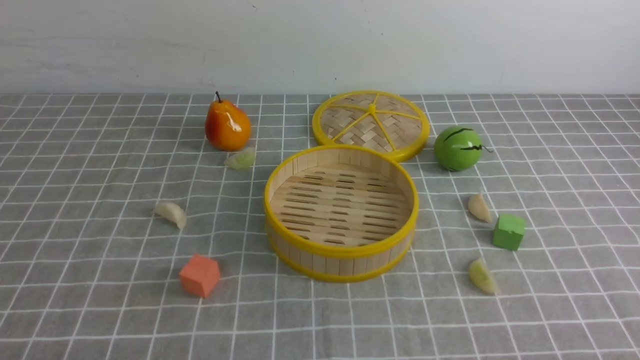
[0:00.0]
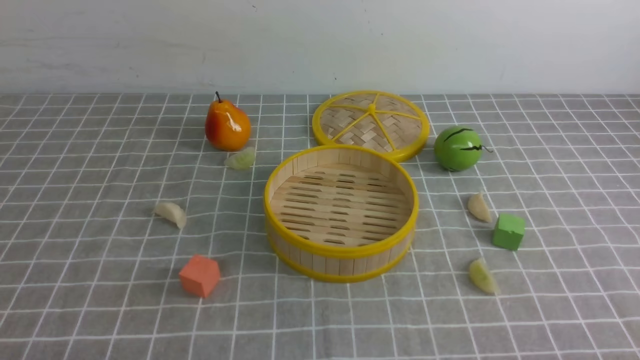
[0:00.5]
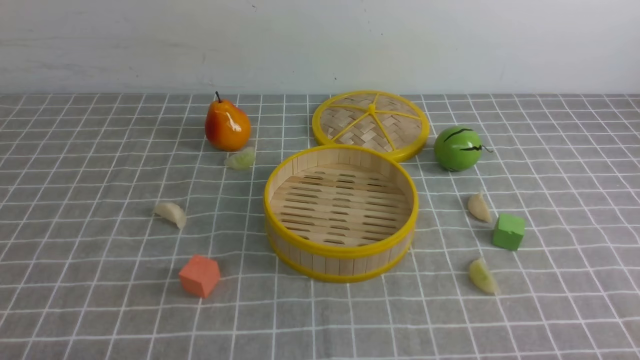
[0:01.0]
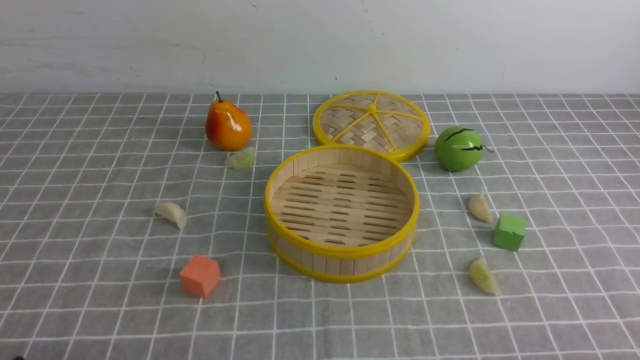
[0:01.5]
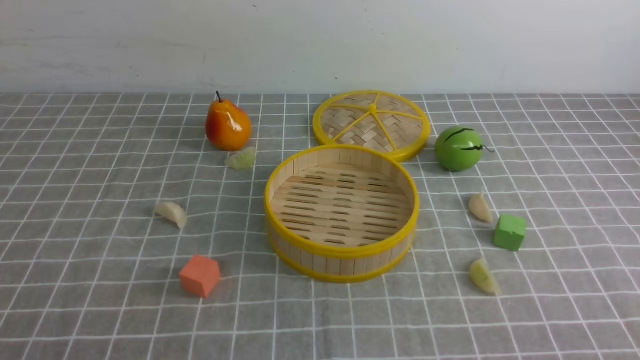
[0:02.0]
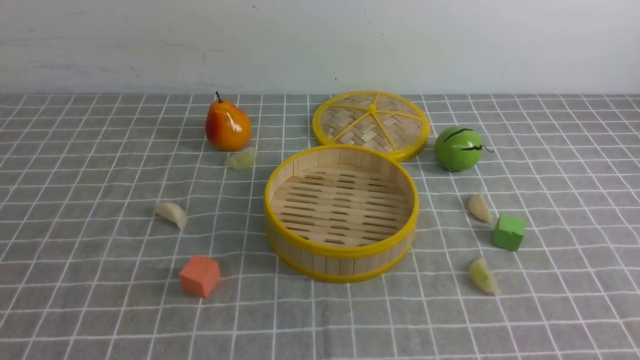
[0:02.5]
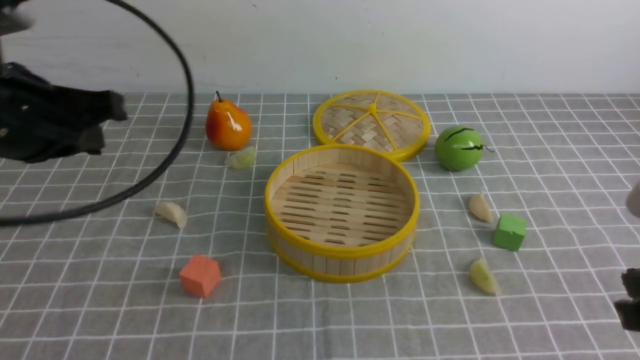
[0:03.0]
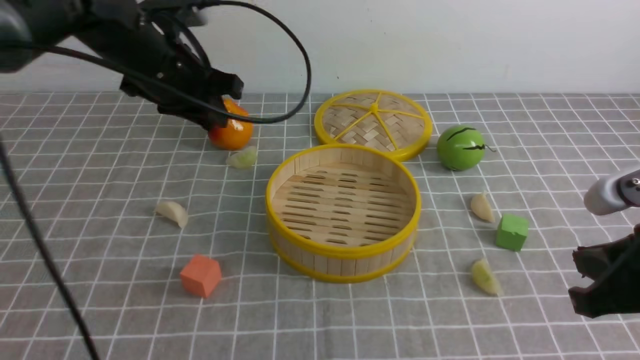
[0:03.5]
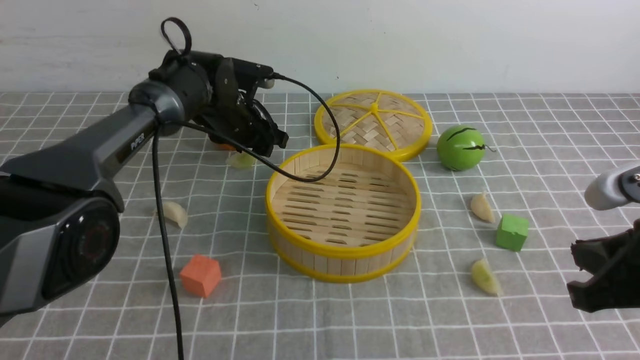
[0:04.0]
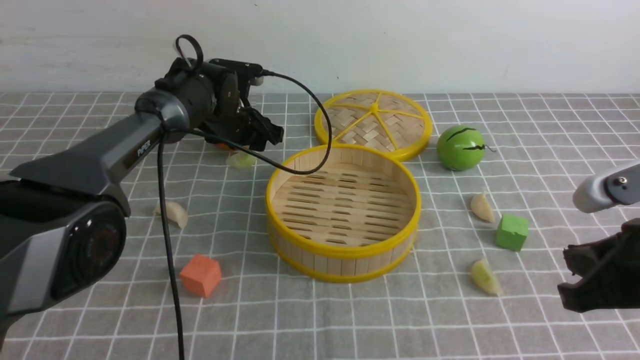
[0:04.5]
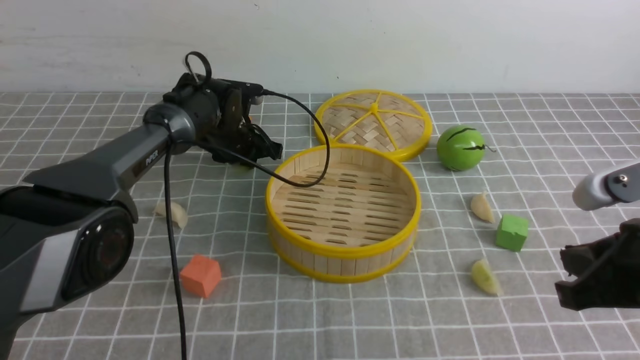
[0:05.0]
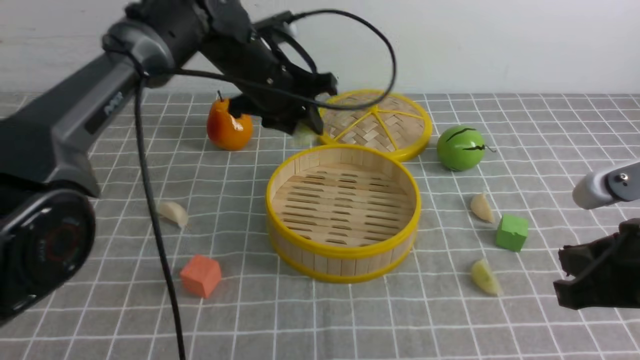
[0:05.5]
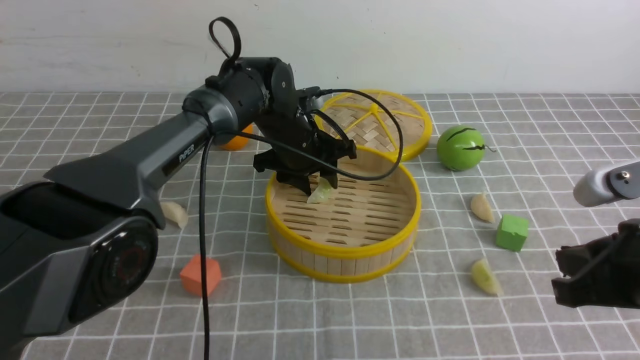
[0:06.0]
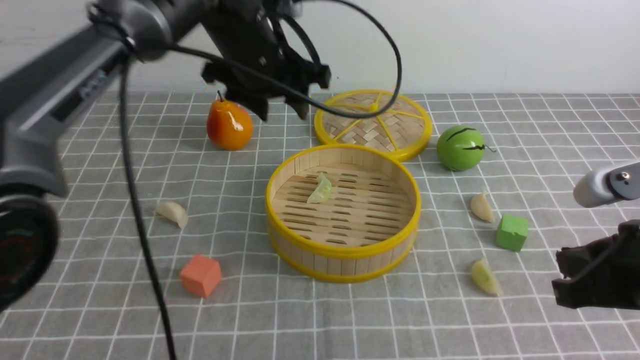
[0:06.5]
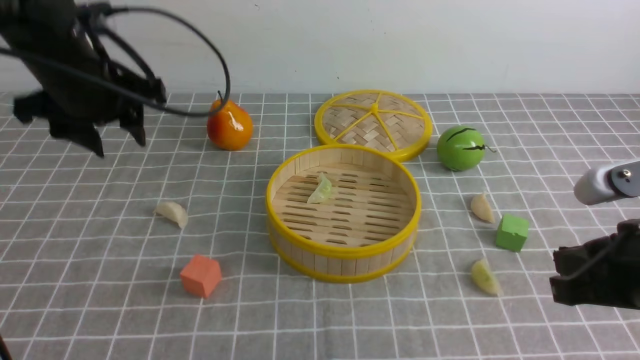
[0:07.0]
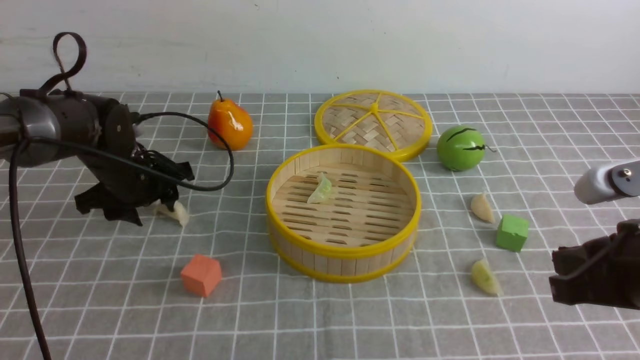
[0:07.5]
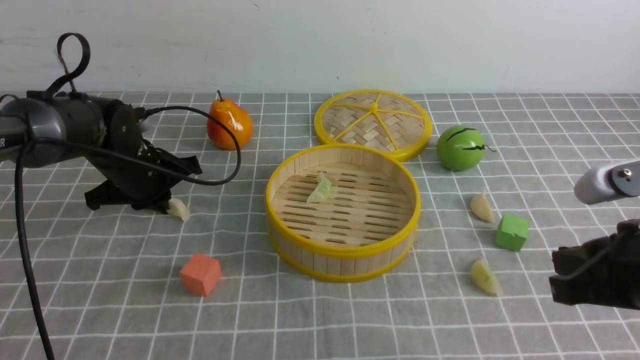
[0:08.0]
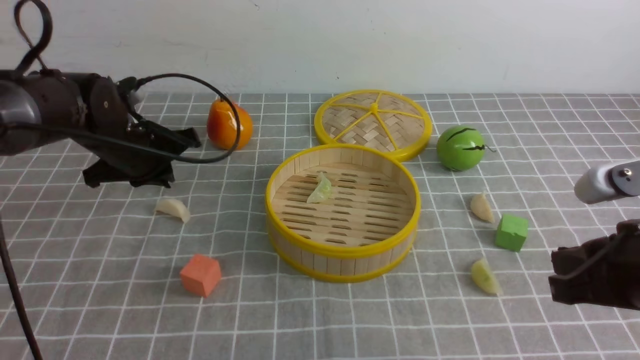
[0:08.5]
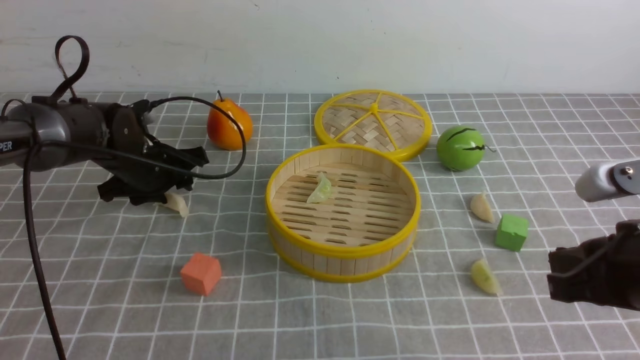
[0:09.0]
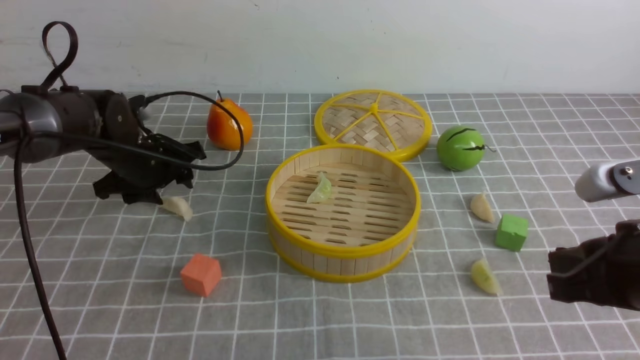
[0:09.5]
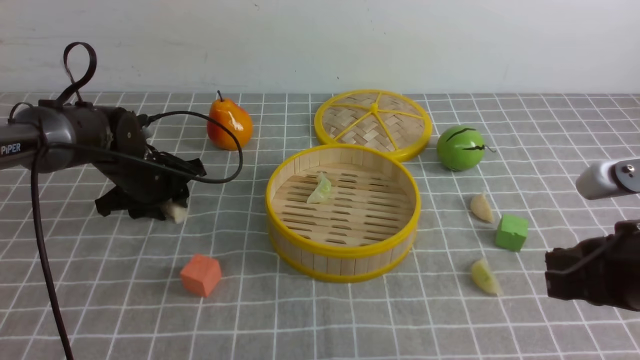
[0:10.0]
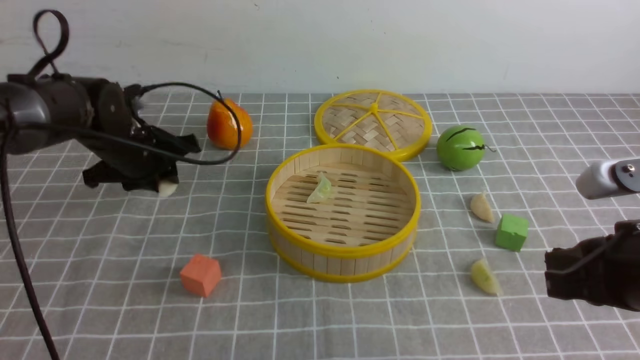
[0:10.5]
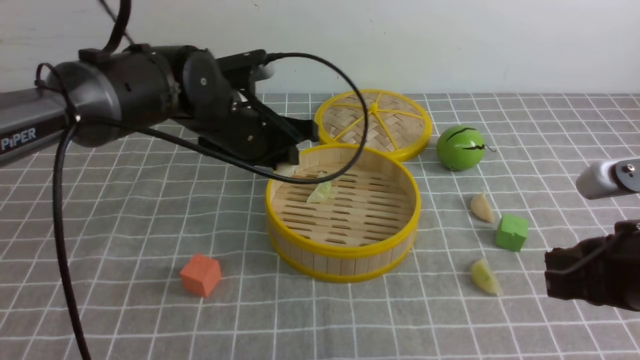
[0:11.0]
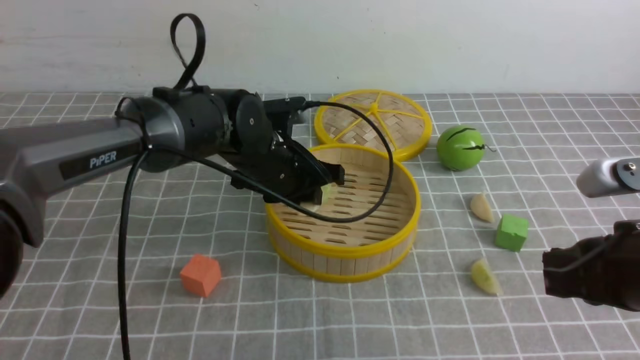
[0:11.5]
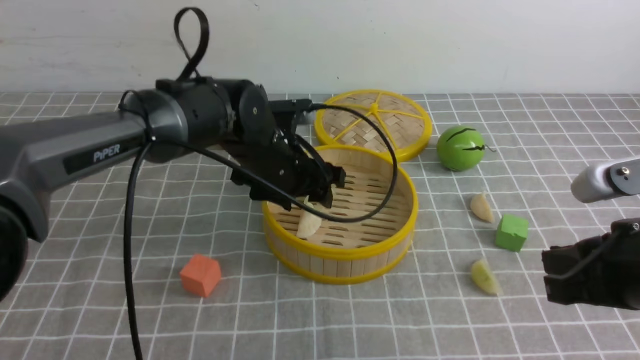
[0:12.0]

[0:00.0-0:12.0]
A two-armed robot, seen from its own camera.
Task of the whole recording: put the dumplings into the steamer on the table with the grey tablecloth.
Step, 0:00.0 to 0:05.0: use the left arm to grab a dumpling.
Step, 0:05.5 to 0:06.0: use the left arm to put the dumpling into the steamer.
Step, 0:06.5 to 0:10.5: use the left arm to grab a dumpling.
0:02.0 to 0:04.0: The right gripper moves forward, about 15 cm, and closes. Meanwhile the left gripper travels forward by roughly 50 cm, and opens up.
0:04.0 to 0:06.0: The left gripper is displaced to the right by about 10 cm, and closes and opens again.
0:06.0 to 0:08.0: The left gripper heads to the left, covering roughly 20 cm, and closes its fingers.
0:08.0 to 0:10.0: The left gripper opens.
0:10.0 to 0:12.0: The left gripper is displaced to the right and upward by about 20 cm.

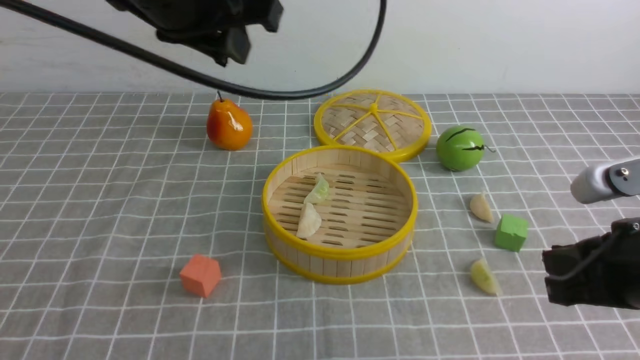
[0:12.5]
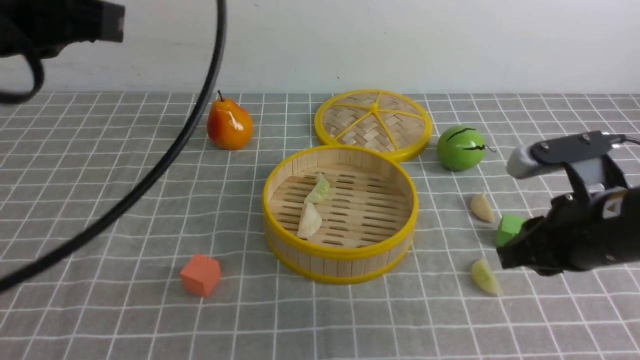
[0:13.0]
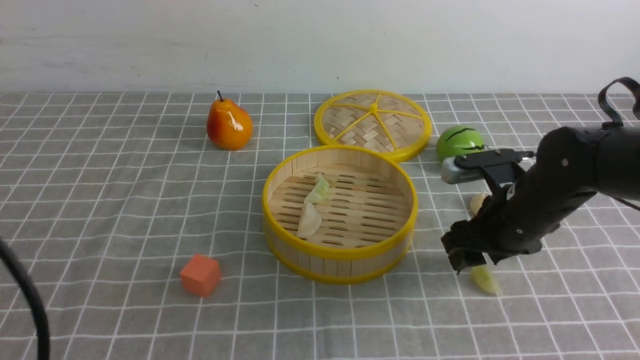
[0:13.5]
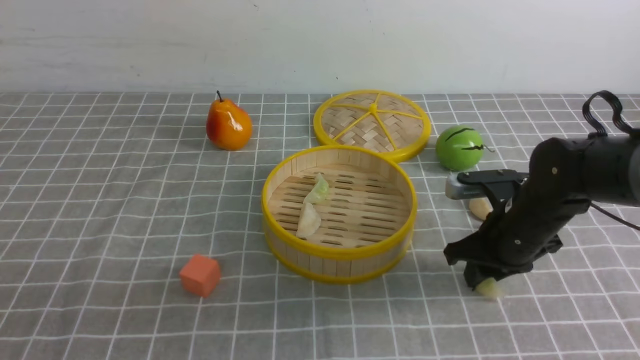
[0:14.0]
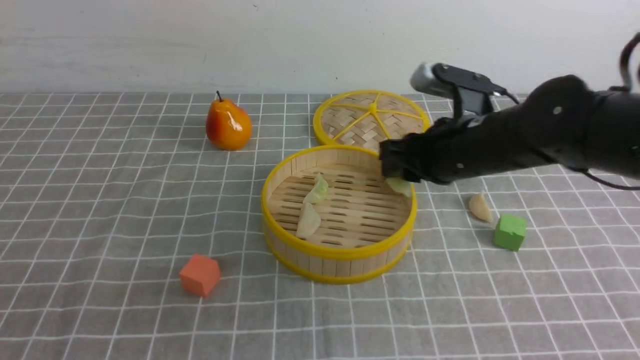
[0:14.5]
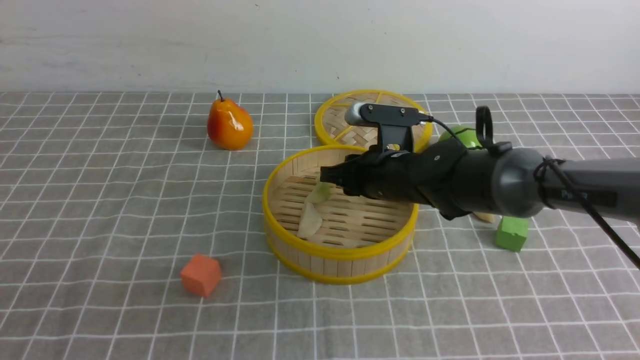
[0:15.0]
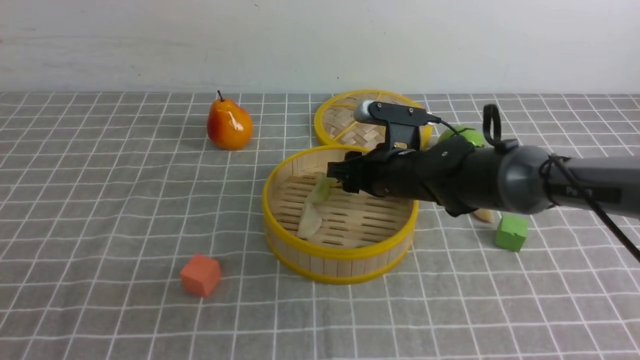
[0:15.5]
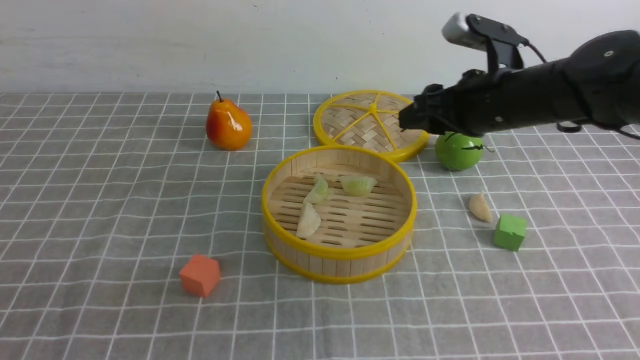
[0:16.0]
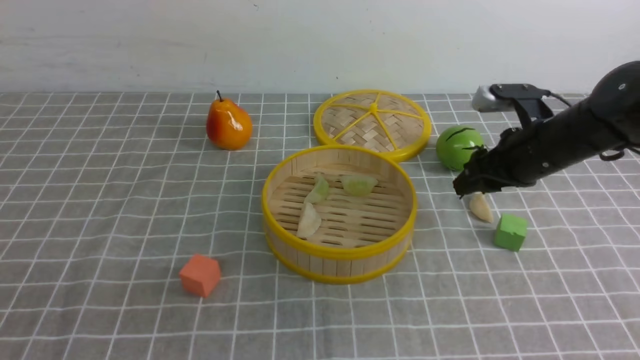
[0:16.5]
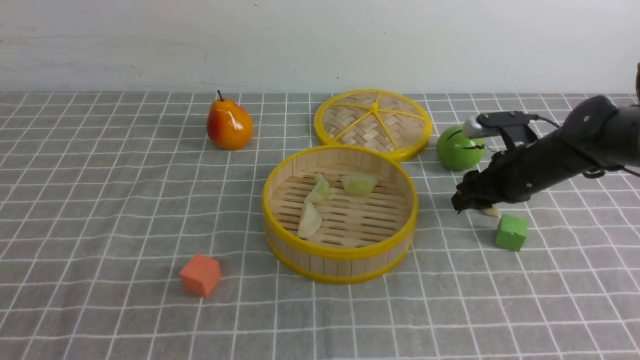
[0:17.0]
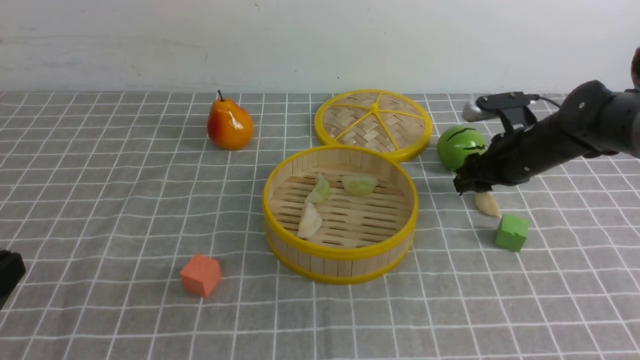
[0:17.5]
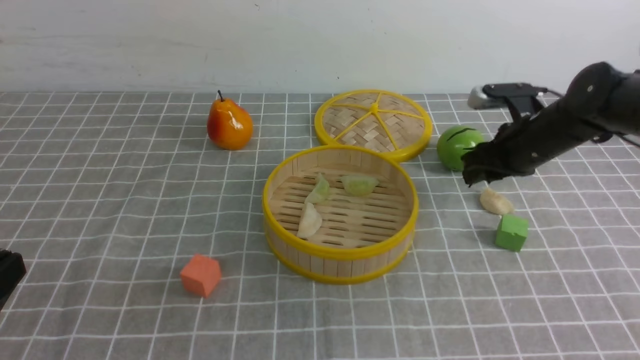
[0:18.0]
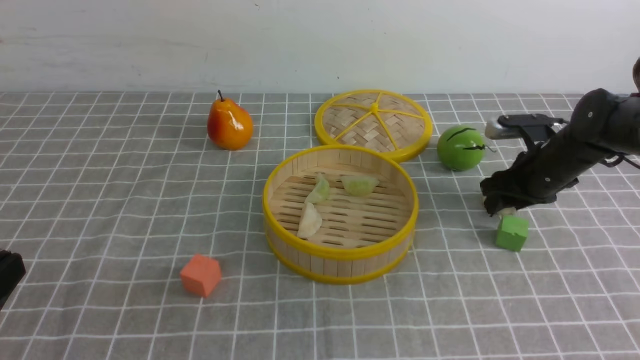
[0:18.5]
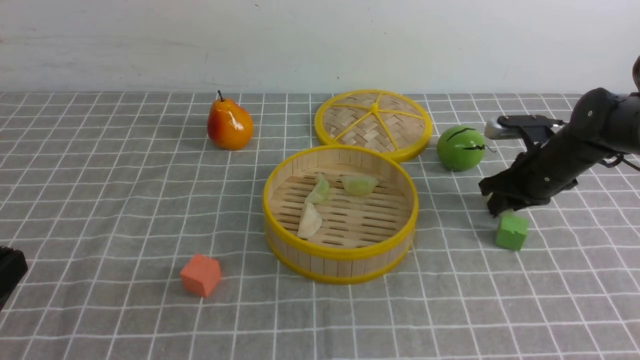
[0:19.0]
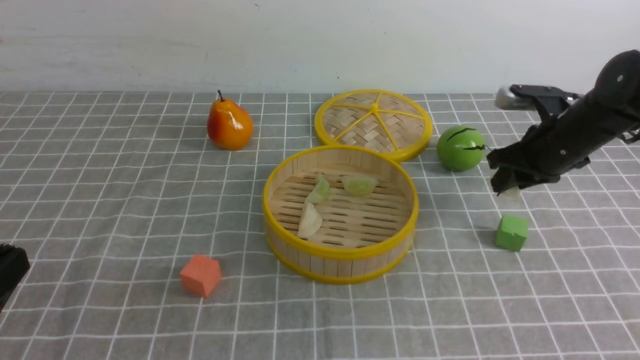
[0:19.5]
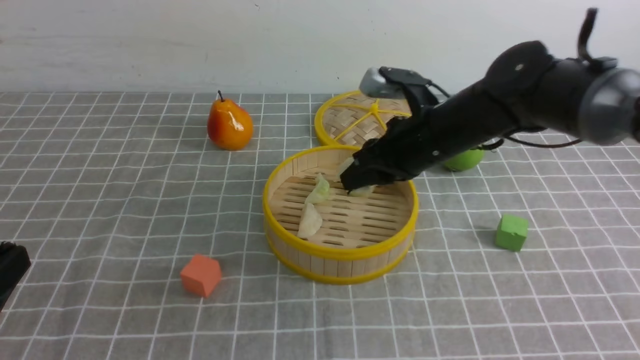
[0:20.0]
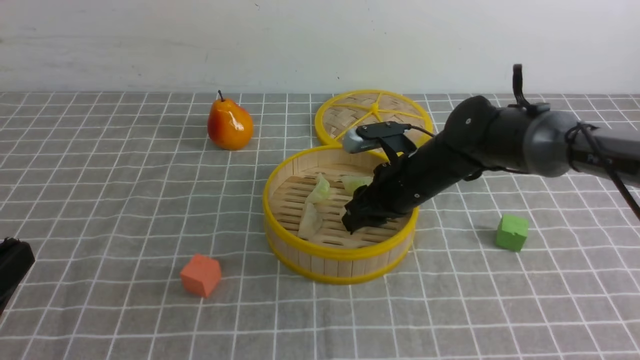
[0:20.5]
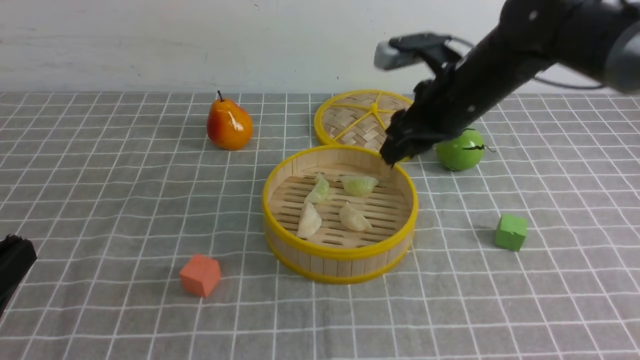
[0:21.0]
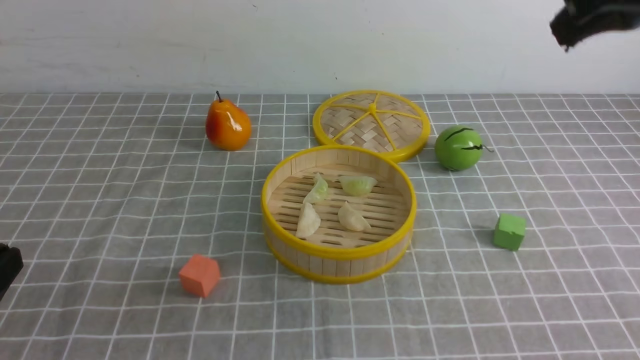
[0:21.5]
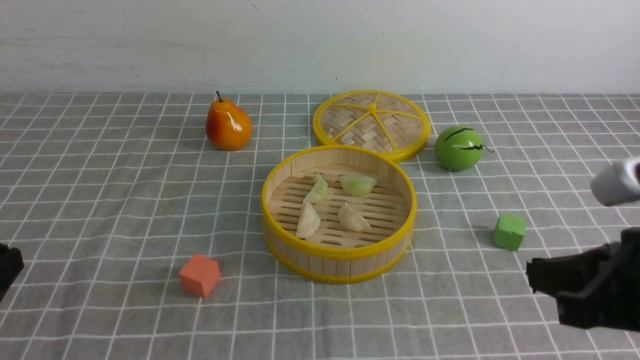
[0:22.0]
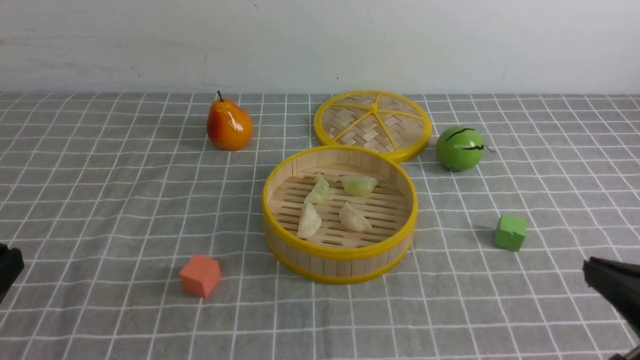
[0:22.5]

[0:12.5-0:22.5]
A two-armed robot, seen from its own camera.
Task of the whole recording: put the dumplings into the steamer on the table with the grey tablecloth.
Step, 0:12.5 to 0:14.0: use the right arm to grab a dumpling.
Step, 0:14.5 to 0:15.5: use the right arm to put the dumpling into the steamer.
Step, 0:16.0 to 0:19.0: use the right arm to grab a dumpling.
Step, 0:19.5 to 0:20.5: use the right arm to put the dumpling into the steamer.
0:12.5 to 0:14.5: The right gripper moves forward and to the left, about 20 cm, and opens, then closes once more. The left gripper shifts approximately 35 cm backward, downward and to the left, and closes its fingers.
0:14.5 to 0:16.5: The right gripper moves to the right, roughly 10 cm, and opens up.
0:16.5 to 0:18.5: The right gripper moves about 5 cm.
0:18.5 to 0:20.5: The right gripper heads to the left, covering roughly 20 cm.
0:20.5 to 0:22.5: The right gripper is displaced backward and to the right by some 35 cm, and closes up.
